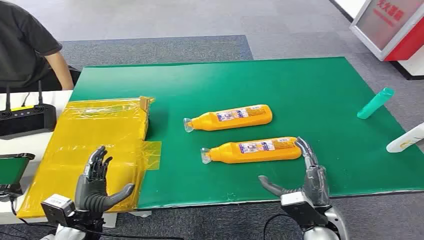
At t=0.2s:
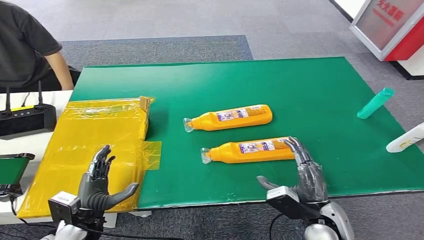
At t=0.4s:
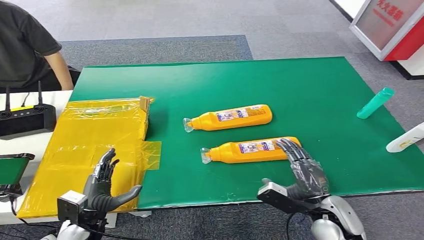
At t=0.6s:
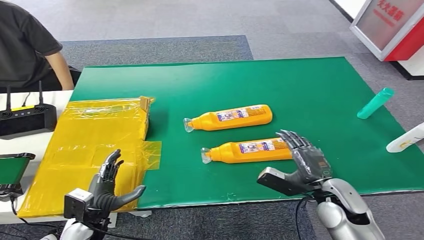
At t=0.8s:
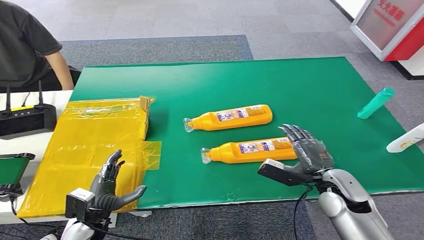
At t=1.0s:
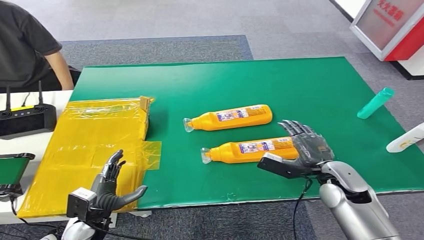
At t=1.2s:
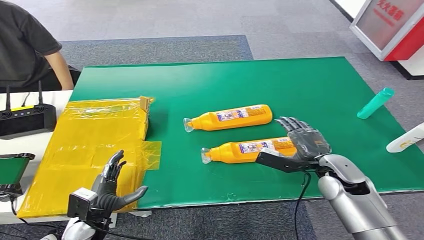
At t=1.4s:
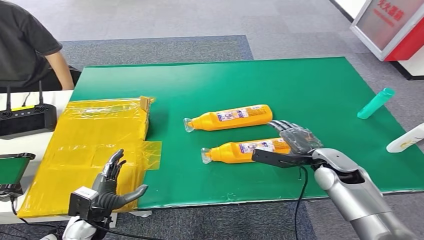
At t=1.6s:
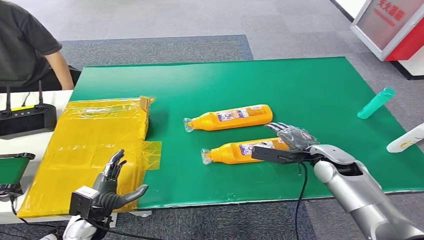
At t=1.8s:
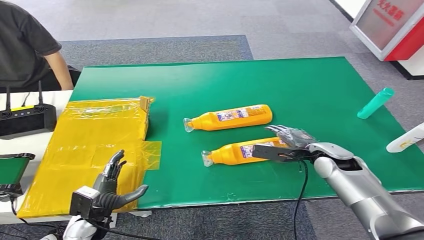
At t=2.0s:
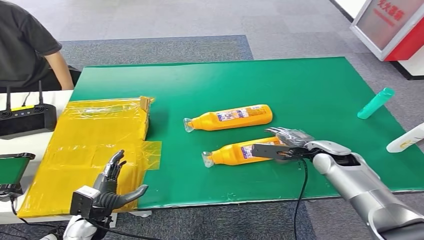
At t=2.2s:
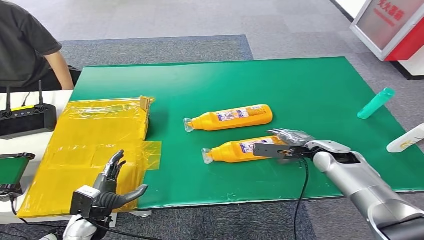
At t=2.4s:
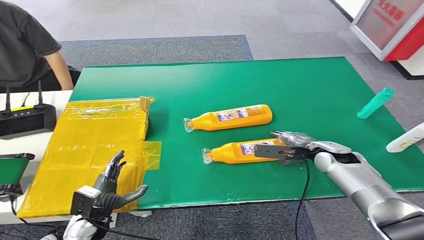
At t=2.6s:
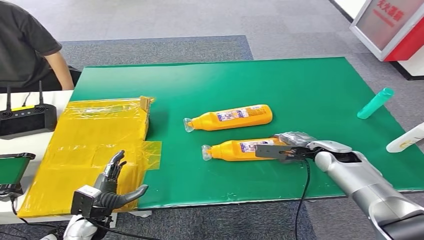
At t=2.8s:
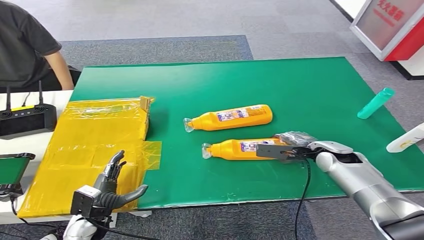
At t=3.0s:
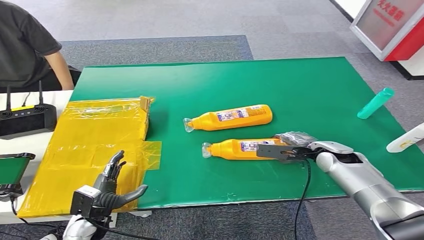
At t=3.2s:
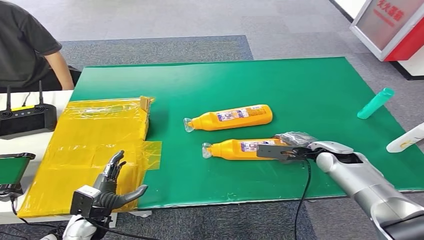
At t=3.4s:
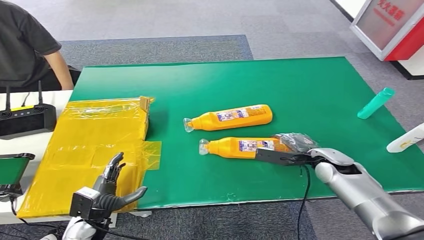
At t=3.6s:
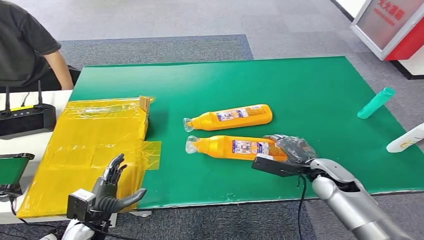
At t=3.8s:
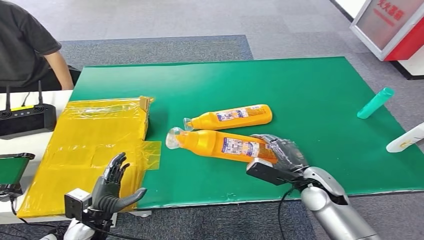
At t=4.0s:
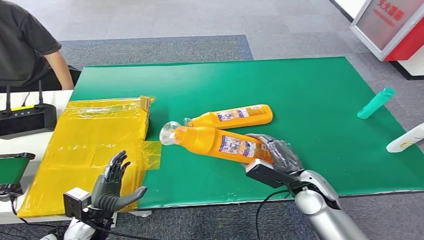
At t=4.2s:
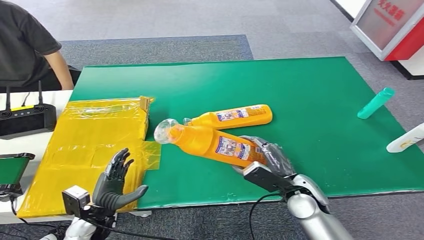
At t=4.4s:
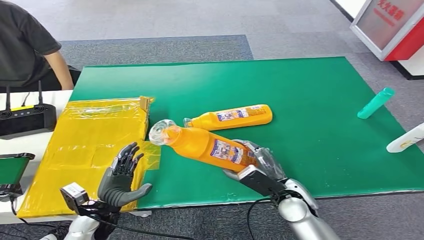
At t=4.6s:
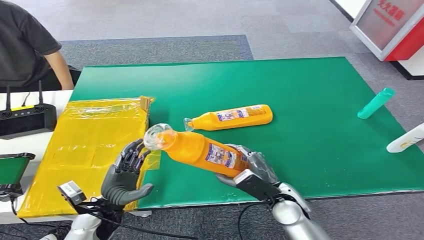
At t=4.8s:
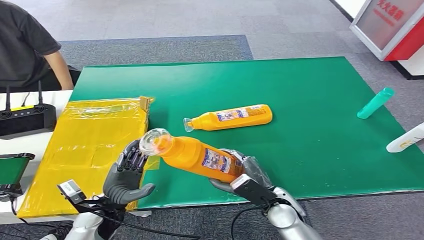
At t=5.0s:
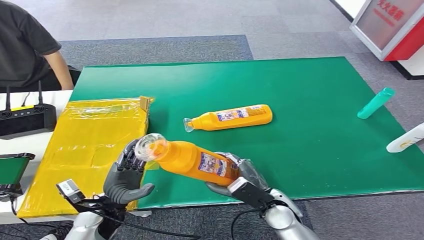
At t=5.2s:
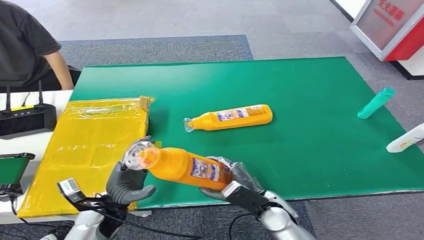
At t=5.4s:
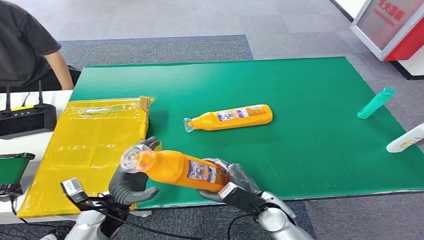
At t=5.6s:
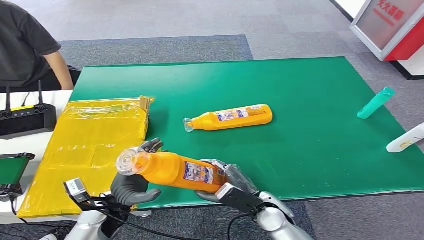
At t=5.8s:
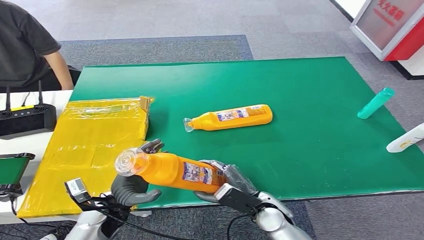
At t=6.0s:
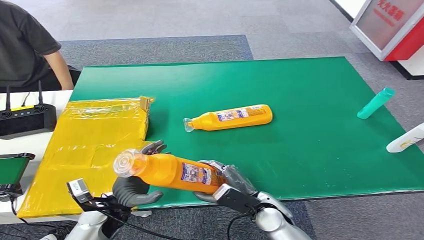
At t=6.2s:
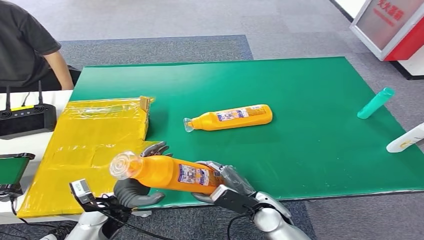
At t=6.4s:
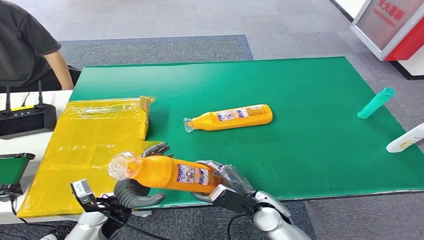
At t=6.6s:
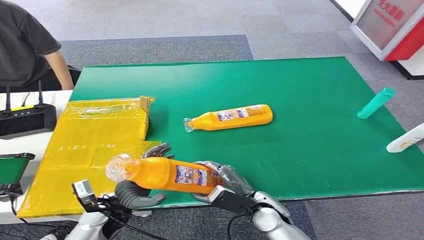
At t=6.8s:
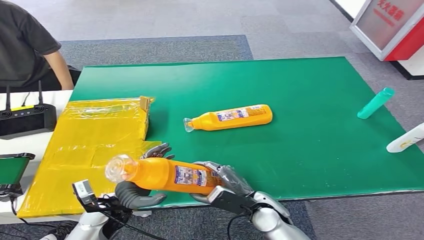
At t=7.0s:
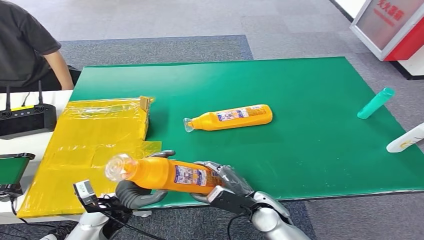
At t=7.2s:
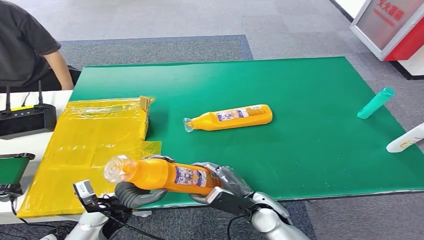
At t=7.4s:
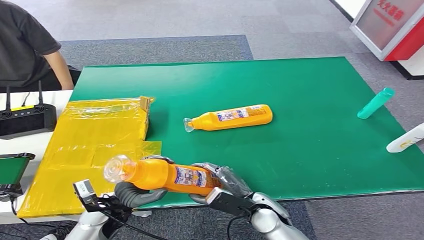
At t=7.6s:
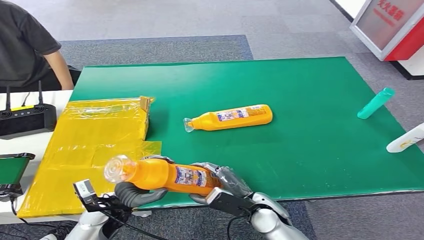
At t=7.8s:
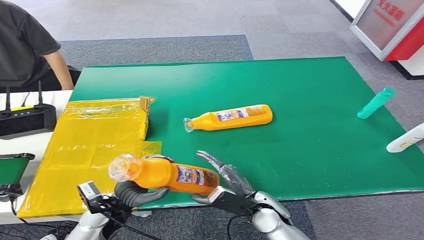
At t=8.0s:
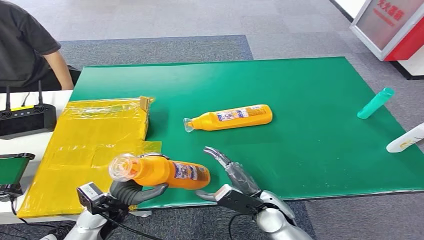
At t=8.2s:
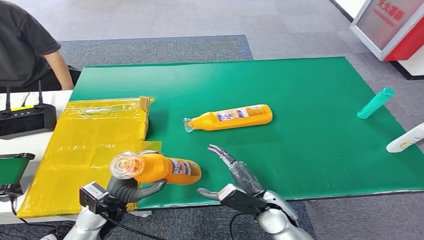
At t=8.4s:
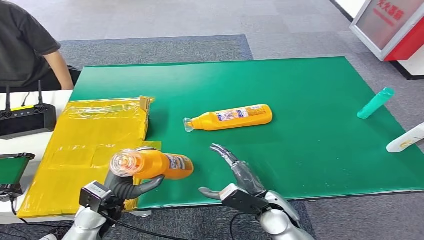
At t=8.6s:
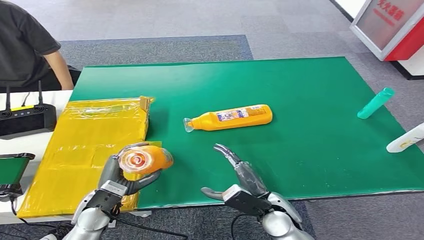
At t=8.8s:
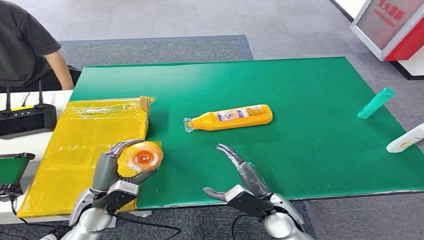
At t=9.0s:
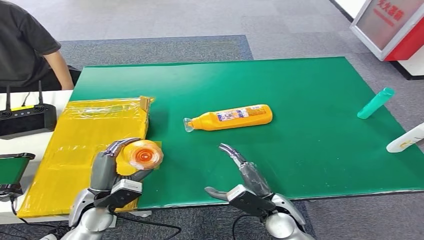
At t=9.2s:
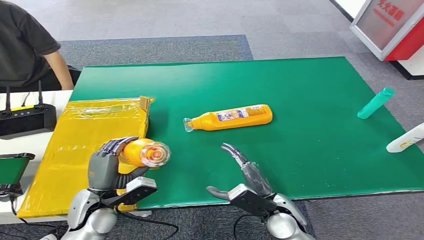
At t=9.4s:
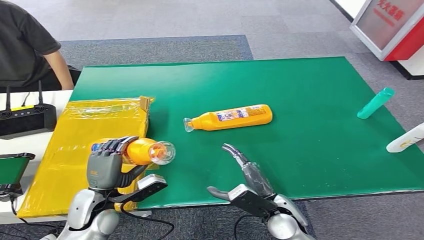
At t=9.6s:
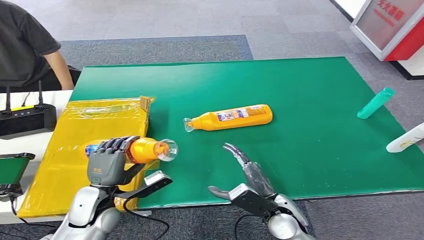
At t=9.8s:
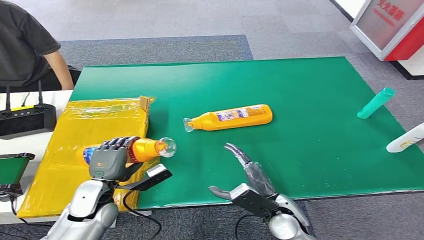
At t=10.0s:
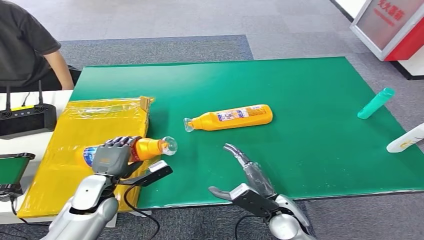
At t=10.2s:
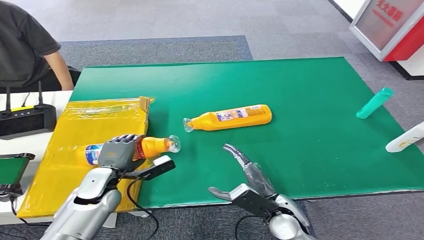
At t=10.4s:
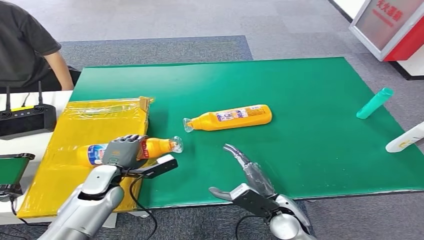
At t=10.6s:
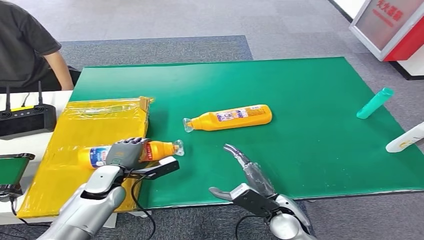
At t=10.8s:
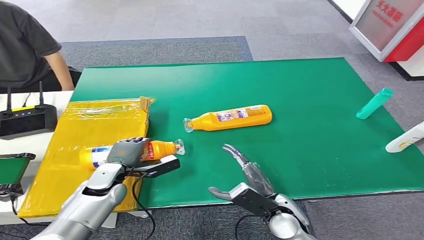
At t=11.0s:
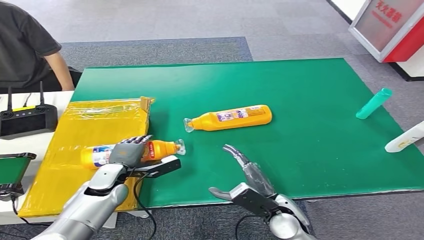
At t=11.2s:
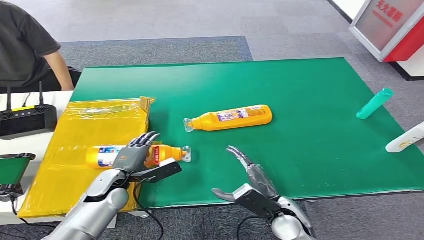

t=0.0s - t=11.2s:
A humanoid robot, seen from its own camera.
Step, t=0.0s - t=4.6s: Pick up the bottle from the table.
Step, t=4.8s - t=11.2s: Turn the bottle to the front side.
t=1.6s - t=3.2s: The hands move only a little.
t=3.2s - t=4.8s: The left hand changes place by roughly 5 cm. Meanwhile the right hand travels to the left and backward by some 20 cm.
t=4.8s - t=8.0s: There are only small adjustments of the hands.
t=9.6s - t=11.2s: The left hand is displaced forward by some 5 cm.
